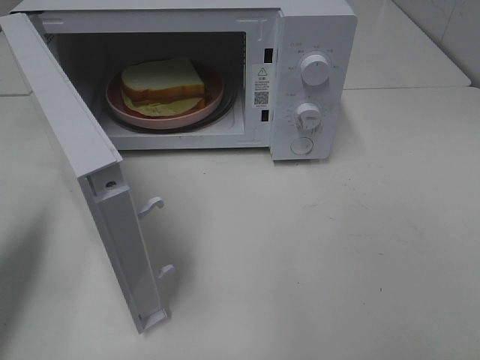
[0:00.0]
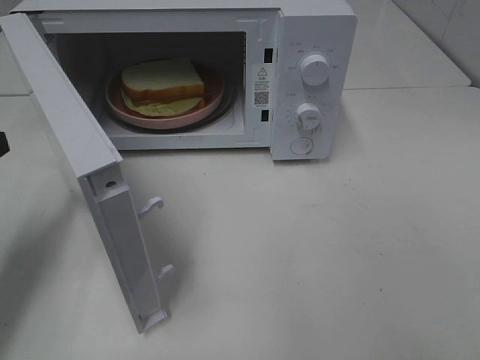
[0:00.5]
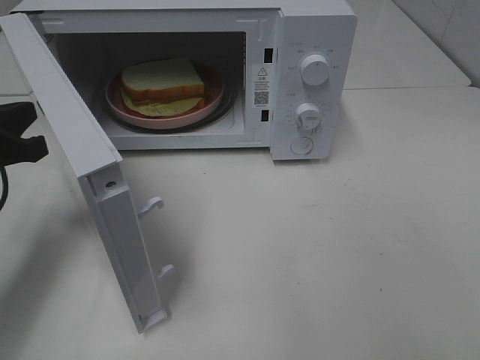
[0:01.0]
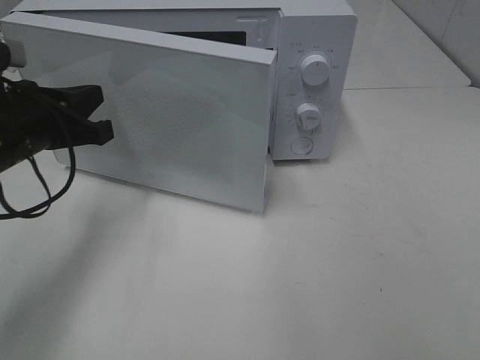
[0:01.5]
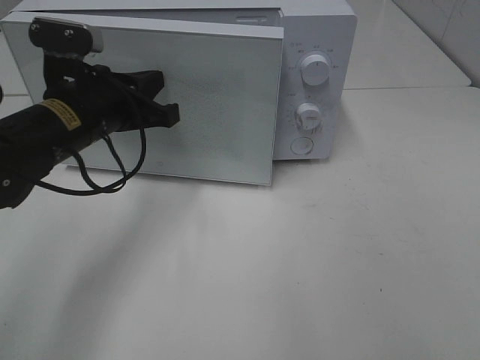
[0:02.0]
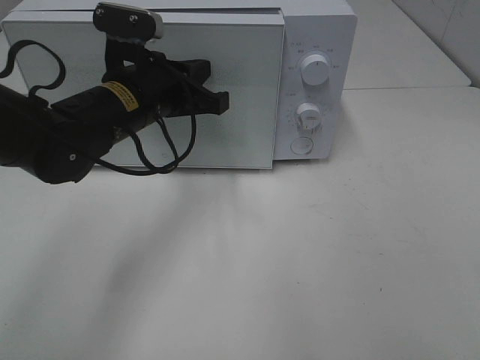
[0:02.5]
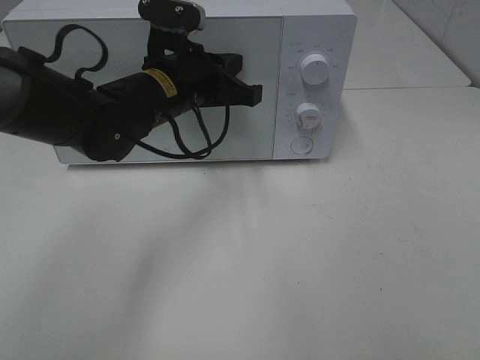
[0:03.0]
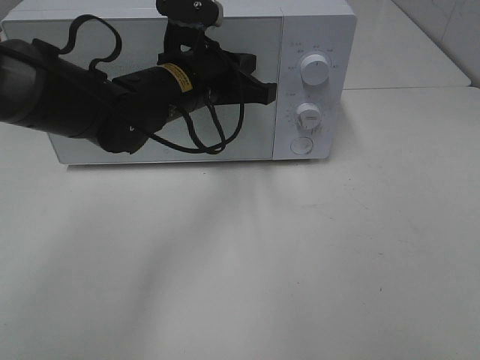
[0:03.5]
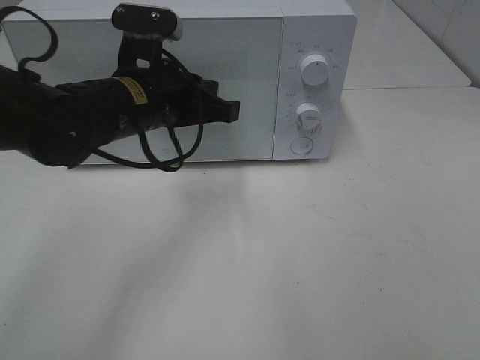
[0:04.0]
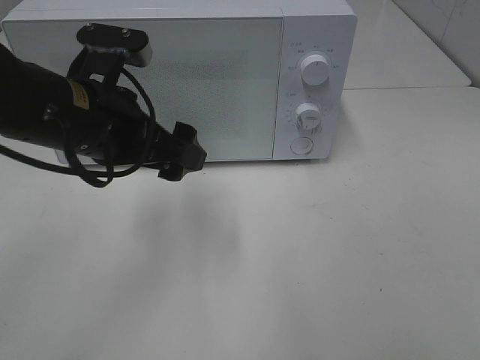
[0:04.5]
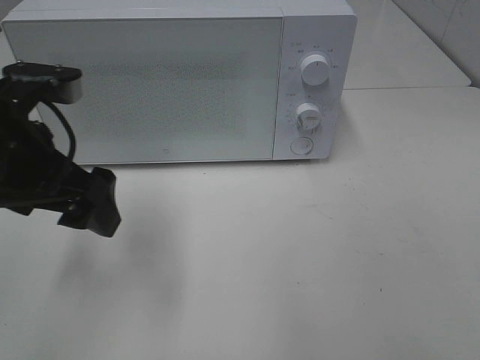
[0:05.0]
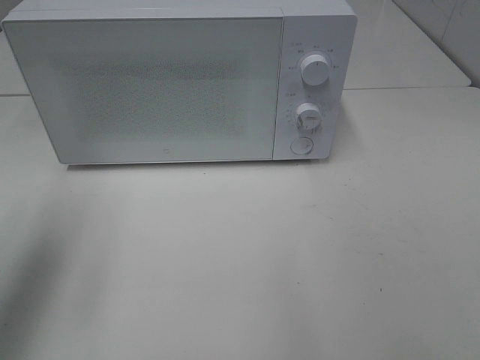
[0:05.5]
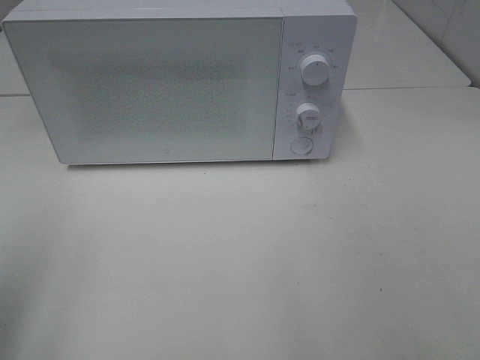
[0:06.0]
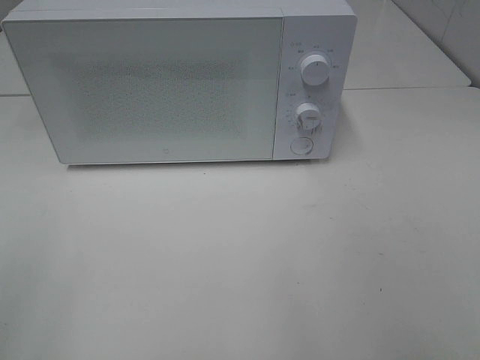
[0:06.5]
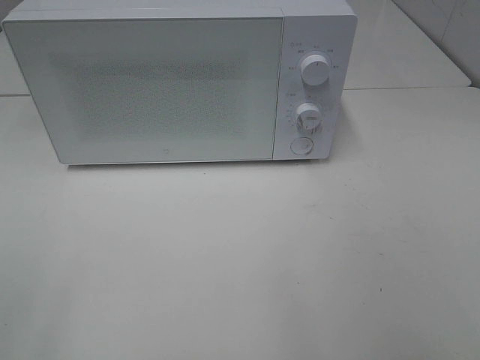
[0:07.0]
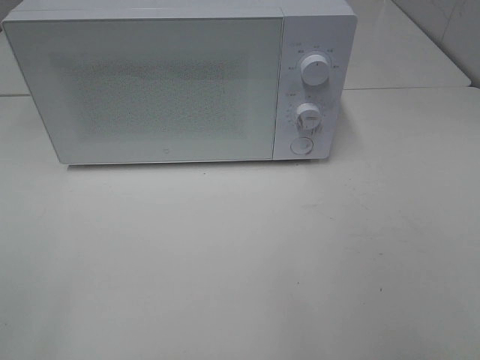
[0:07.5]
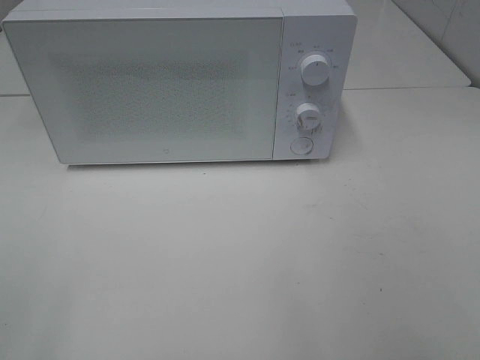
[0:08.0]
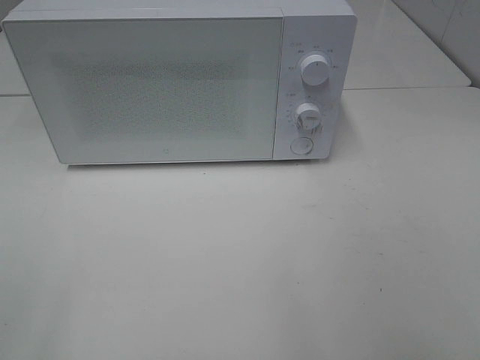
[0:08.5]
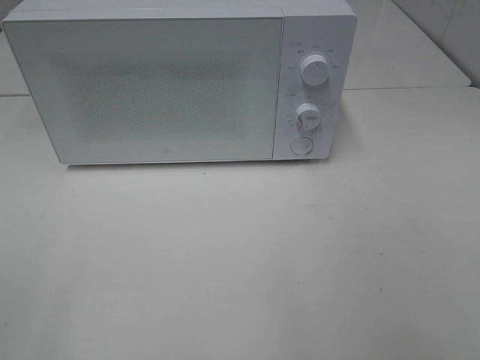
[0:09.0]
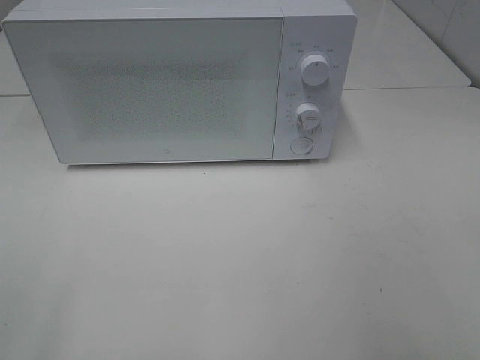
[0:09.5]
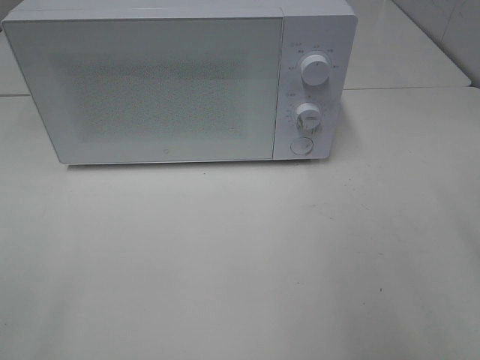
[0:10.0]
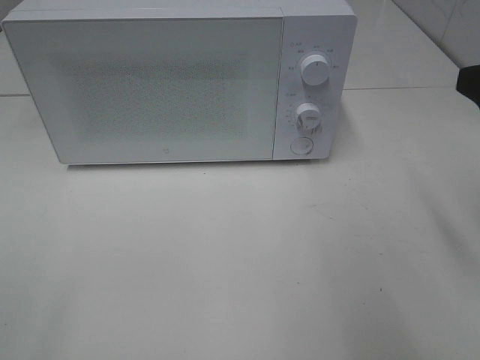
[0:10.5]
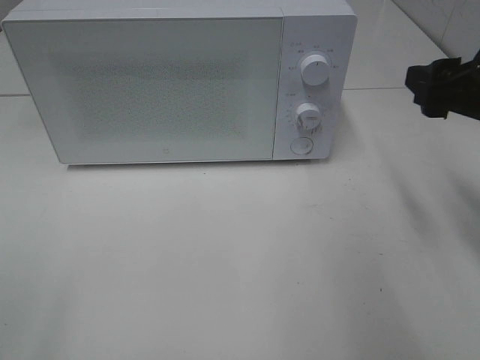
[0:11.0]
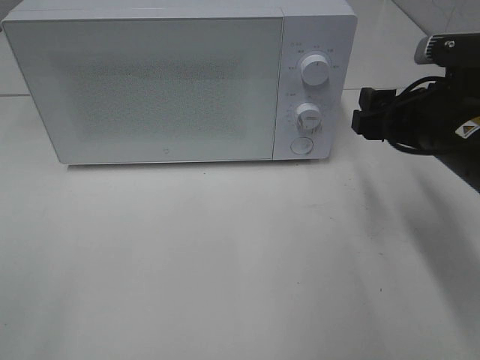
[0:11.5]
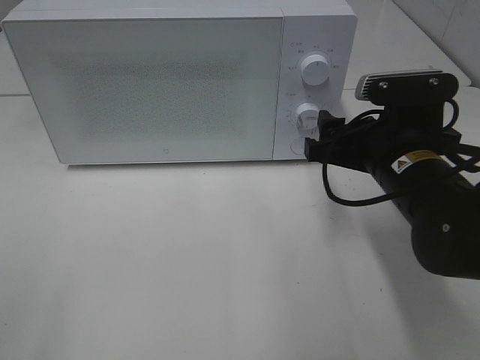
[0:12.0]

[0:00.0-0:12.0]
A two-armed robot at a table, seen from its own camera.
Task of the whole recording: Heat Sandwich.
Step, 0:00.0 to 0:04.0: Left hand: close the microwave door.
0:00.0 to 0:02.0: The left gripper goes some 20 cm to the right and forward.
0:02.0 to 0:04.0: The left gripper moves to the right, about 5 cm.
0:04.0 to 0:06.0: The left gripper is displaced to the left, backward and upward by roughly 30 cm, and opens its fingers.
0:10.0 to 0:12.0: The right gripper travels downward, forward and to the left by roughly 25 cm.

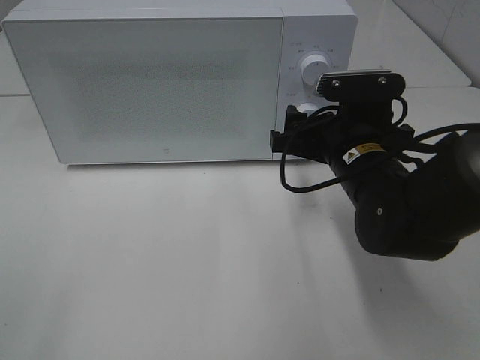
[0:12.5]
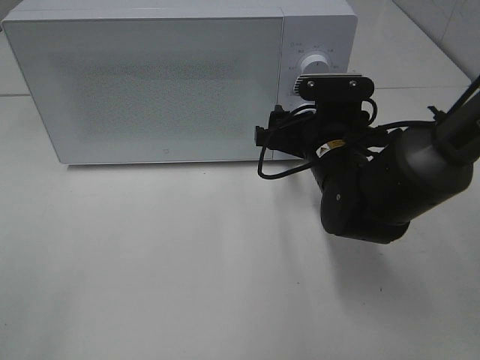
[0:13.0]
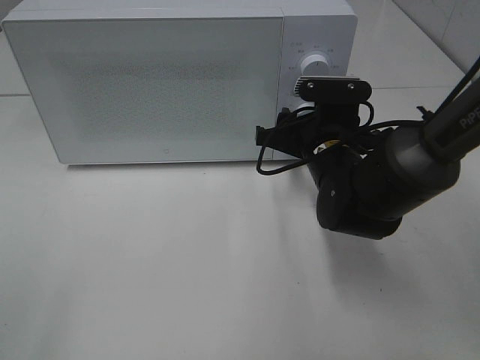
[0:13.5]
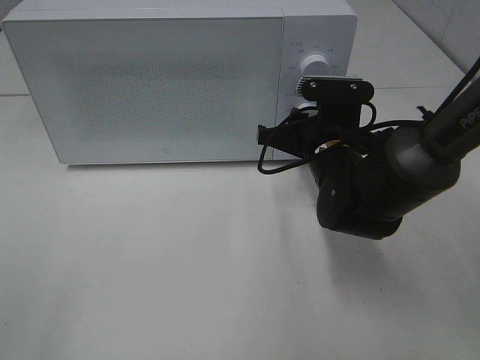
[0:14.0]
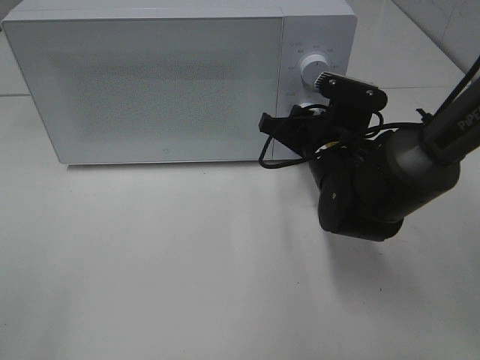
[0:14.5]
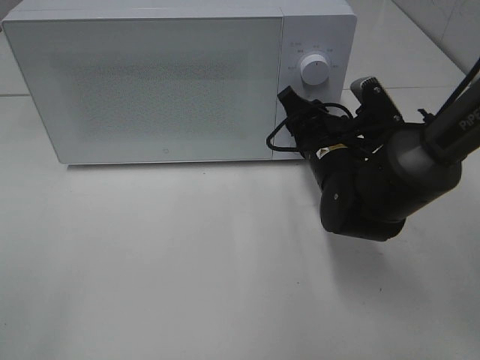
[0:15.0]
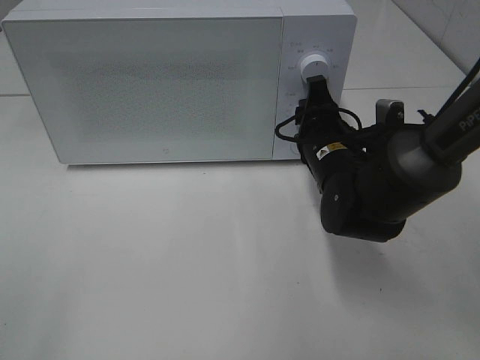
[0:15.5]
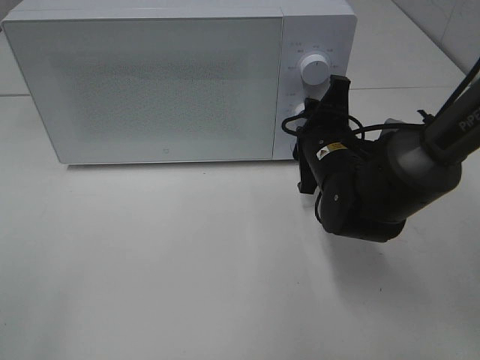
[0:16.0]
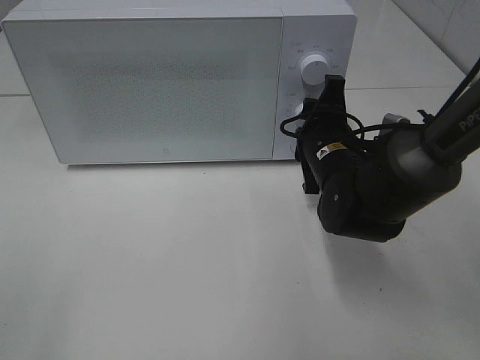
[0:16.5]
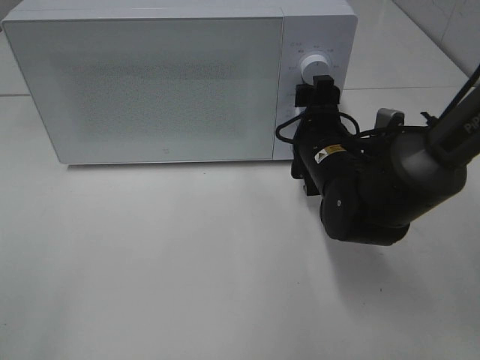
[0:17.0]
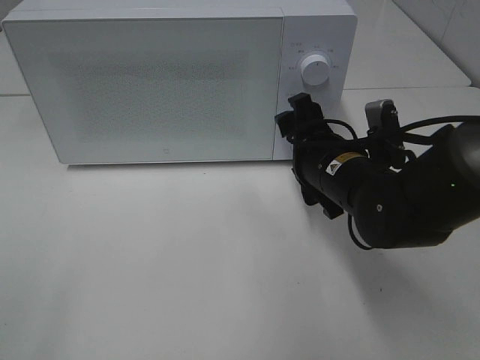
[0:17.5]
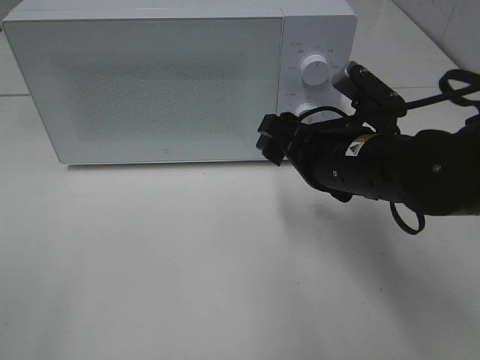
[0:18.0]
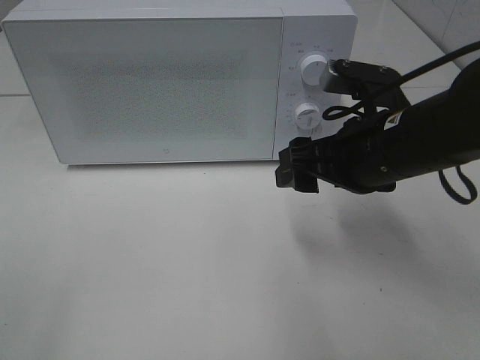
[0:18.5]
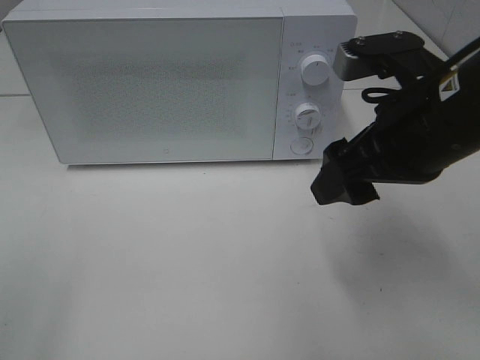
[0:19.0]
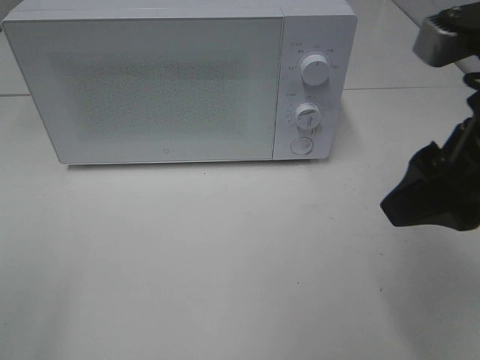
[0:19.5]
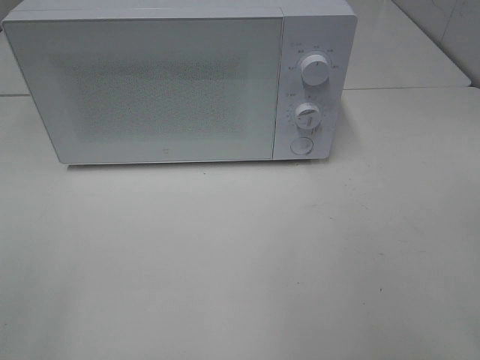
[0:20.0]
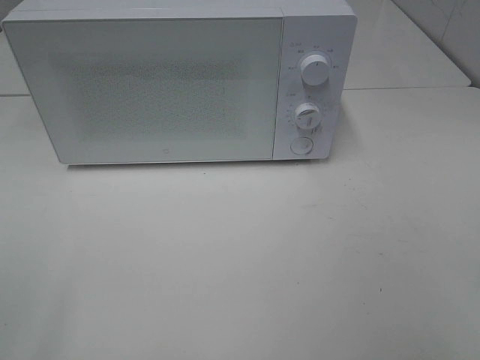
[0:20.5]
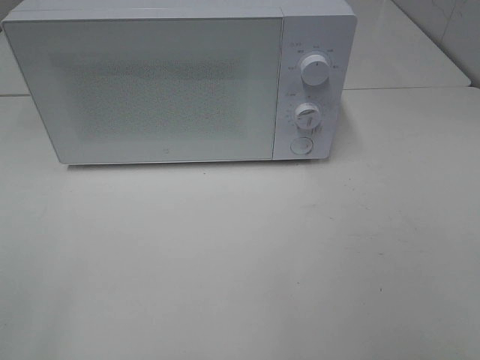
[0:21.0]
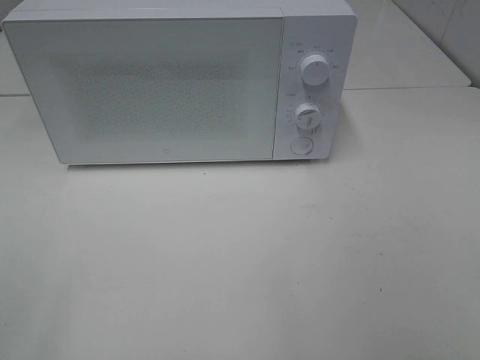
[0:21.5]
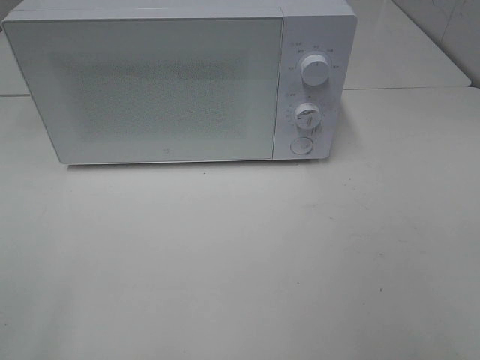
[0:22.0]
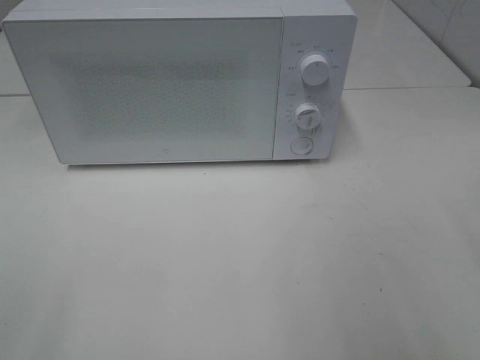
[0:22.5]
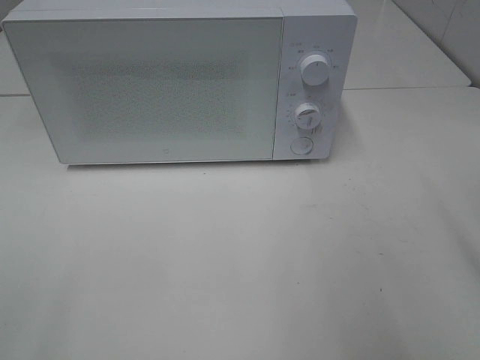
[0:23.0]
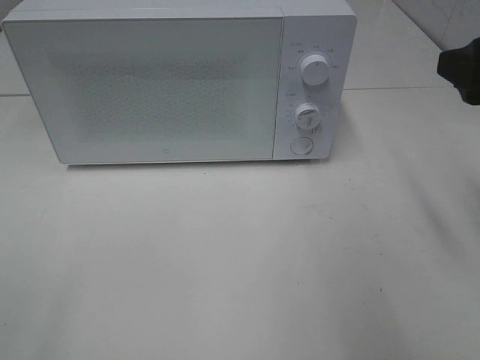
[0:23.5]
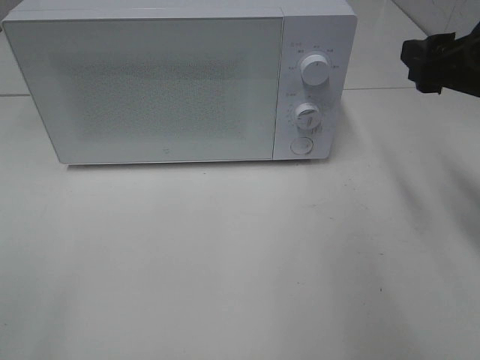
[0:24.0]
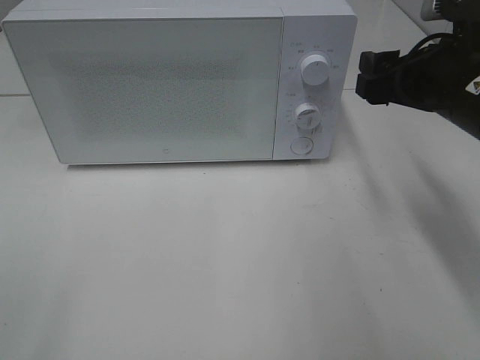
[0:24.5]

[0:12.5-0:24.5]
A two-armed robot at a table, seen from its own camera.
Task of the whole recording: Heat Sandwich.
Step, 0:12.5 to 0:17.5: Right hand: twist timer button.
0:12.5 to 0:14.5: The right gripper changes place by about 5 cm, and closes.
0:16.5 to 0:18.5: The right gripper travels upward and backward by approximately 10 cm, and opens.
0:18.5 to 0:20.5: The right gripper travels backward, to the right and upward by some 30 cm.
0:22.5 to 0:24.5: The right gripper is displaced forward and downward by roughly 20 cm.

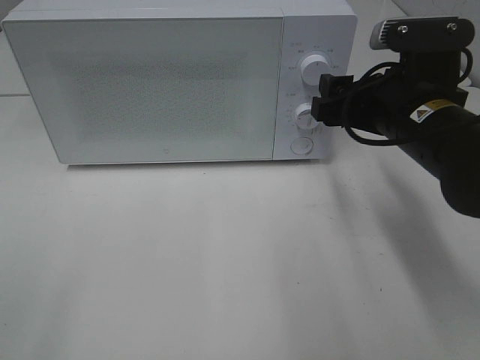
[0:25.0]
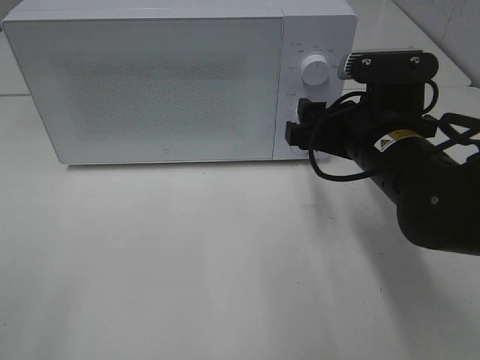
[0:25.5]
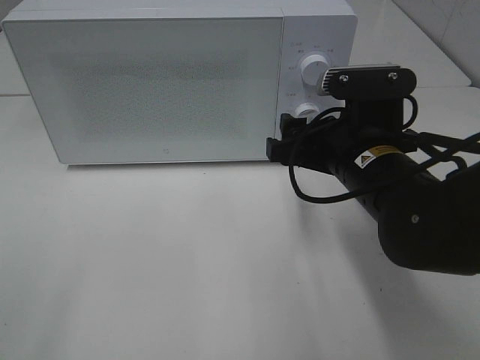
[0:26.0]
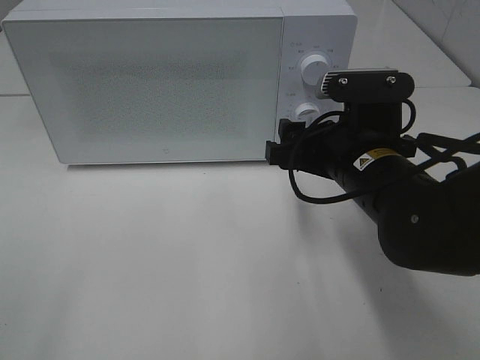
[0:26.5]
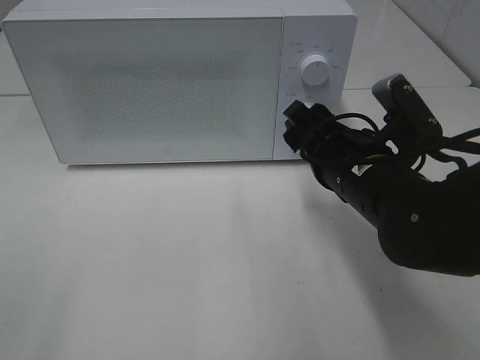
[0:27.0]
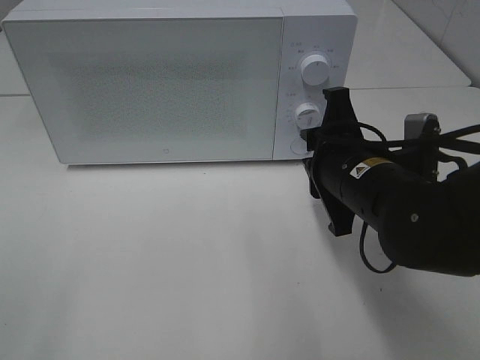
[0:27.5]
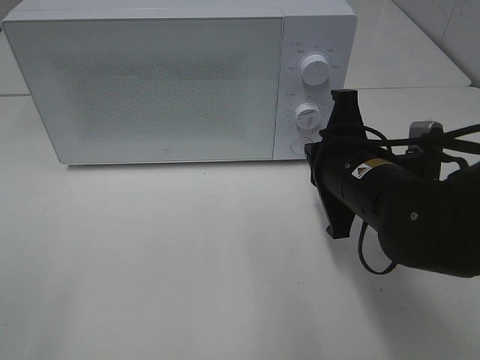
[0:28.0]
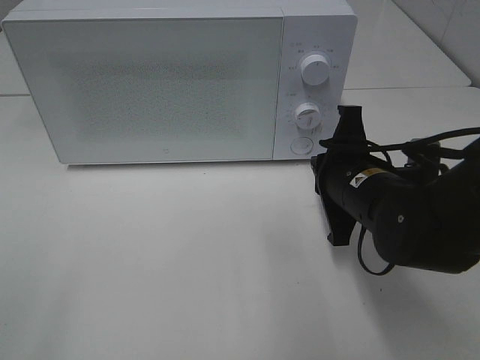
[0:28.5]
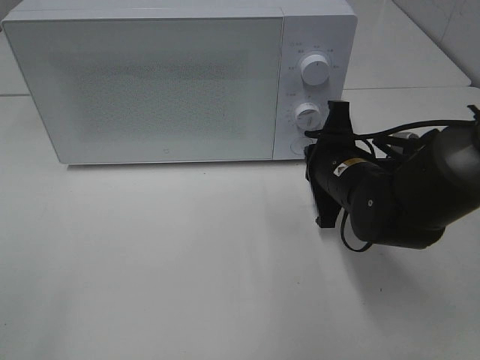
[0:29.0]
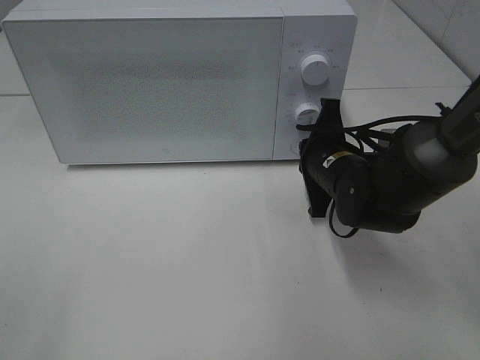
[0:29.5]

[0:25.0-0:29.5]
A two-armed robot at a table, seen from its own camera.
Task of the whole recording: Heat Sandwich.
0:25.0 to 0:27.0: The right gripper moves roughly 5 cm.
0:27.0 to 0:29.5: The right gripper goes roughly 10 cm forward and downward, and closes its fingers.
